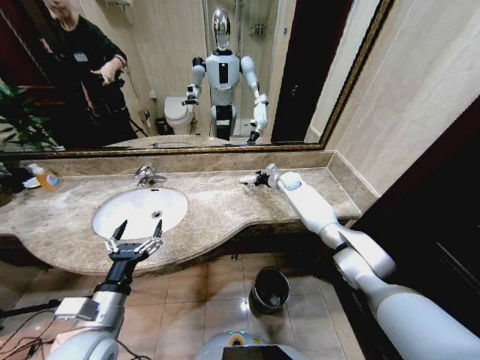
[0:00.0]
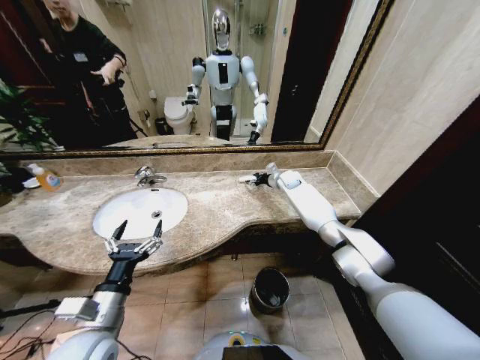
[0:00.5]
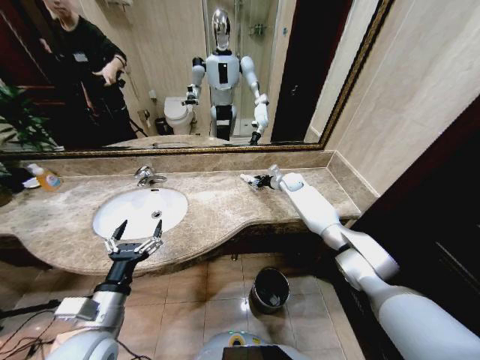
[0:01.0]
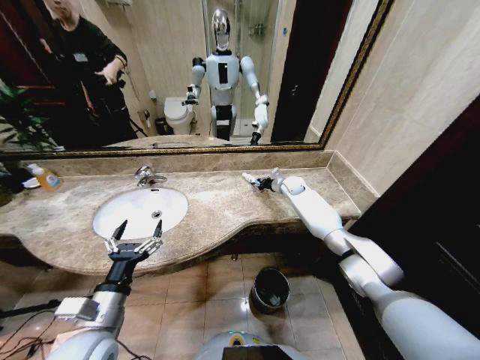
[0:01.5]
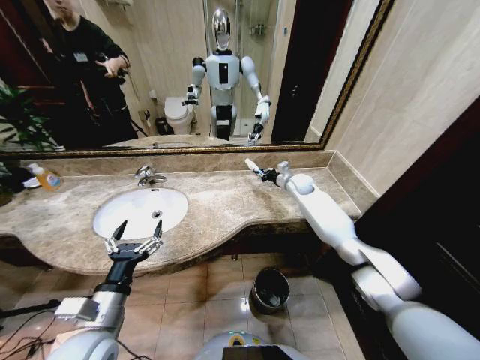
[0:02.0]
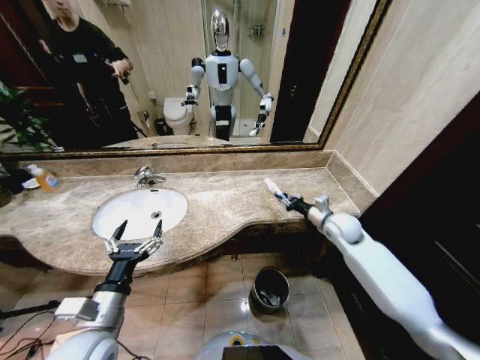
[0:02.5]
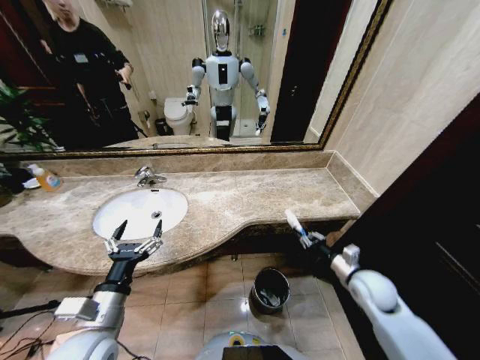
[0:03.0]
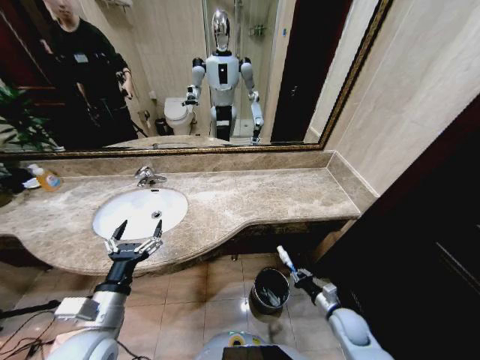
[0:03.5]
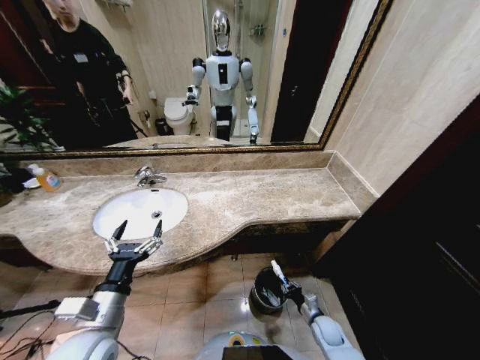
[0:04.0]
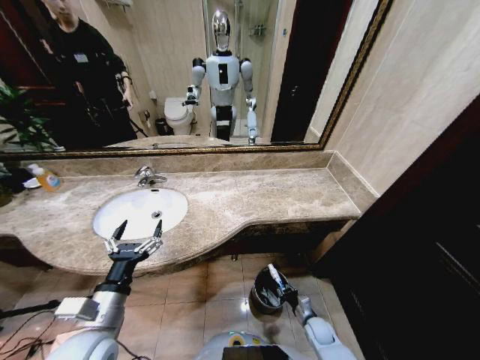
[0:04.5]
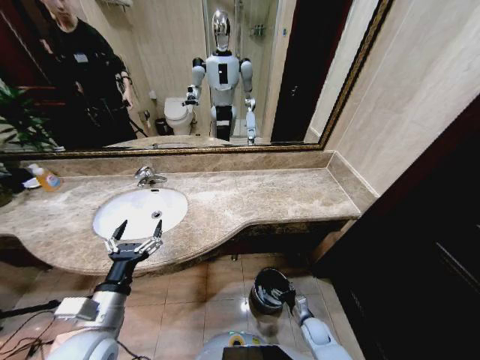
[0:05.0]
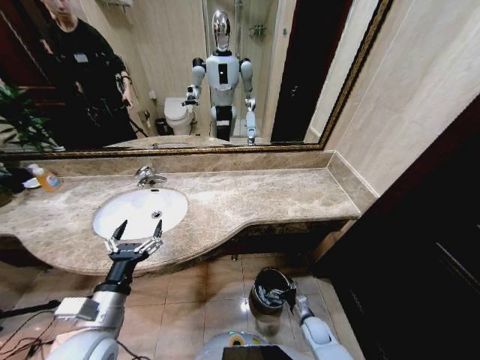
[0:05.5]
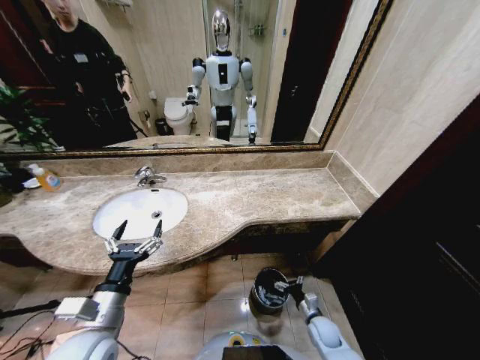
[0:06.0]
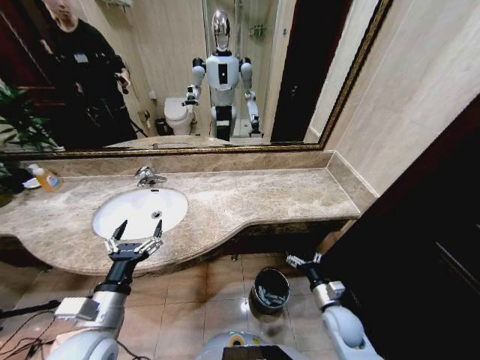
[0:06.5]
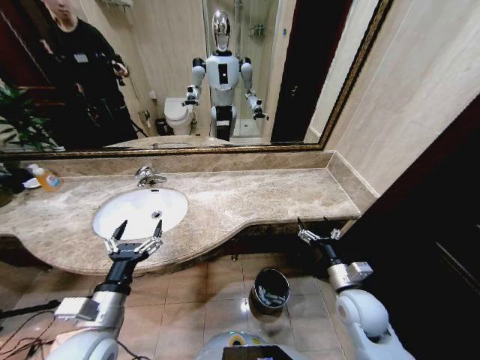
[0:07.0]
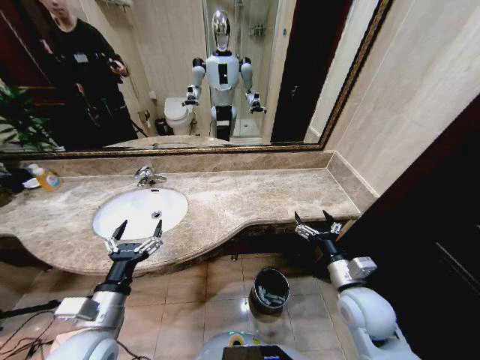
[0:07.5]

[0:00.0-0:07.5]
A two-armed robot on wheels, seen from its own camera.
Task of the whole recording: Pick up the trash from the sink and place it in the trash bin.
0:00.0 to 0:02.0: The right gripper shifts some 5 cm backward, and closes.
0:02.0 to 0:04.0: The right gripper shifts roughly 50 cm backward and downward.
0:04.0 to 0:05.5: The right gripper opens.
0:05.5 to 0:07.5: The right gripper travels upward by approximately 35 cm.
